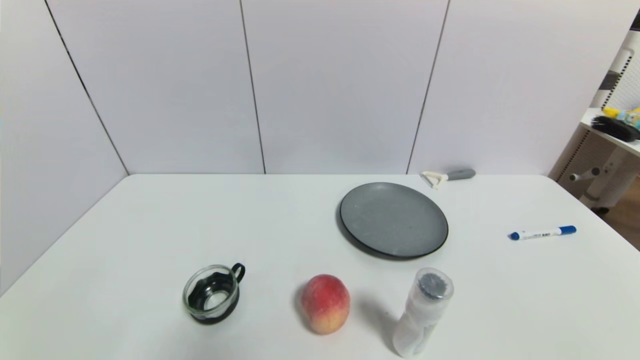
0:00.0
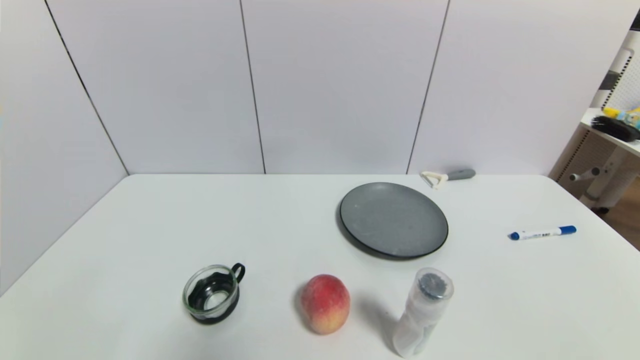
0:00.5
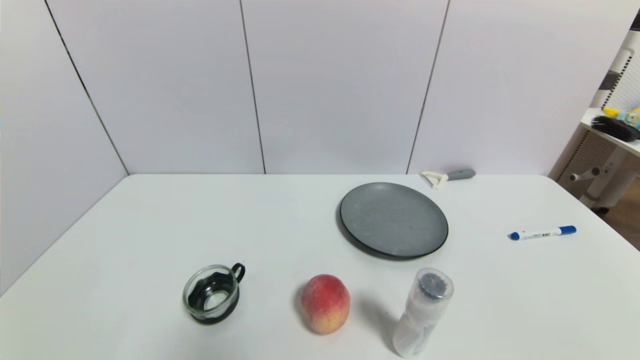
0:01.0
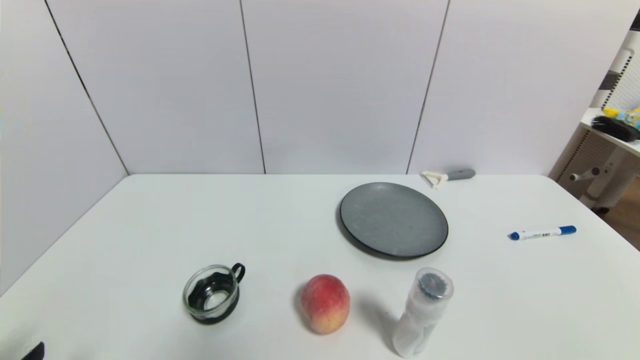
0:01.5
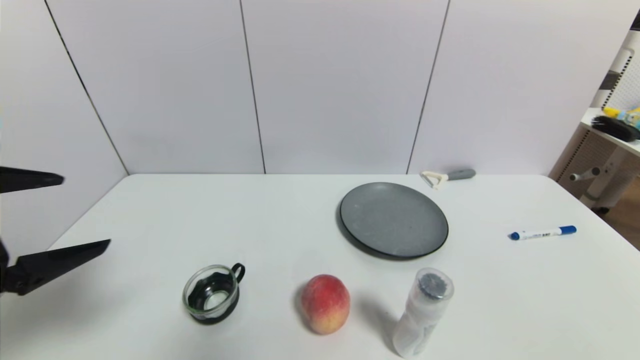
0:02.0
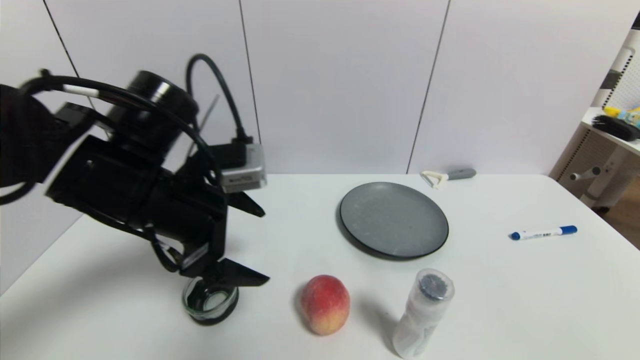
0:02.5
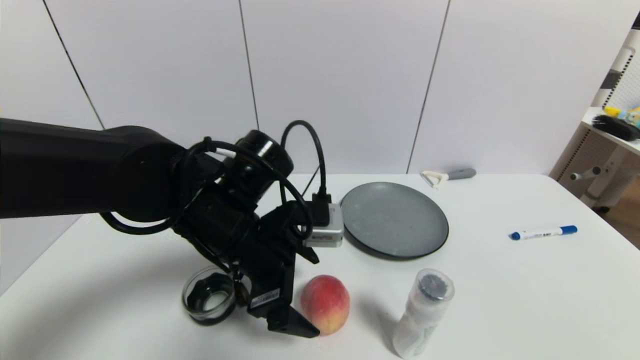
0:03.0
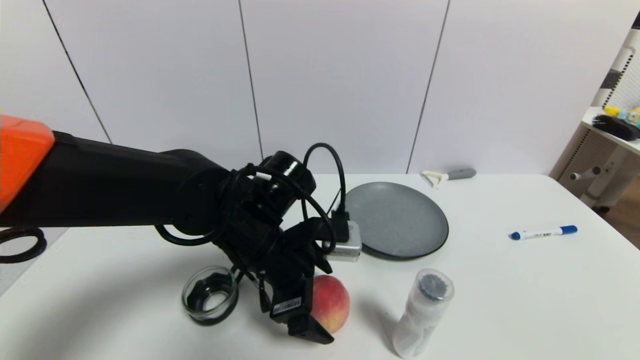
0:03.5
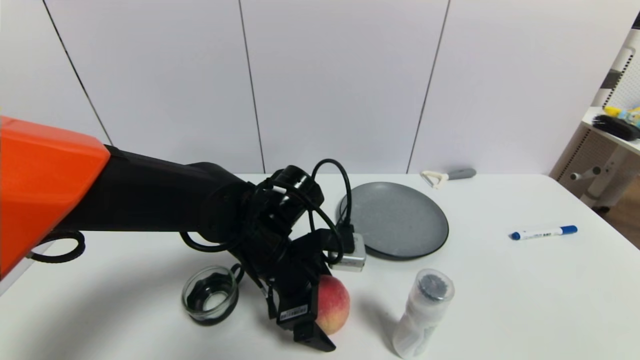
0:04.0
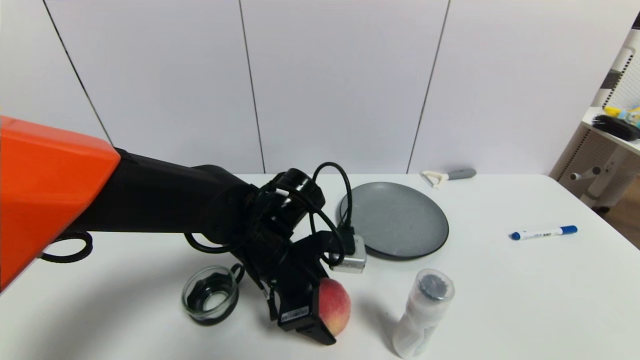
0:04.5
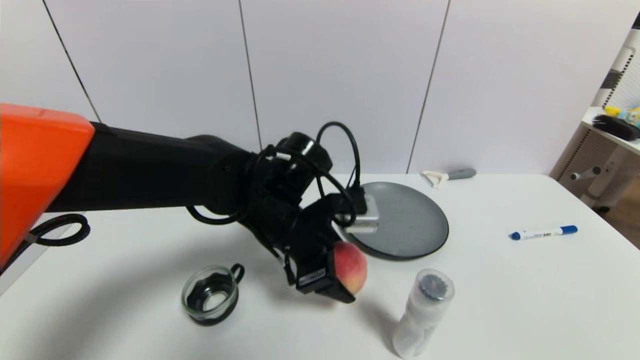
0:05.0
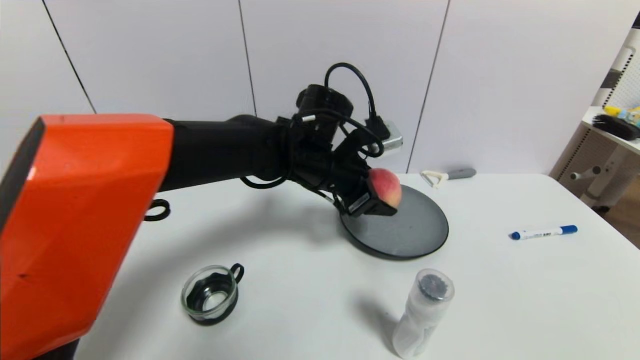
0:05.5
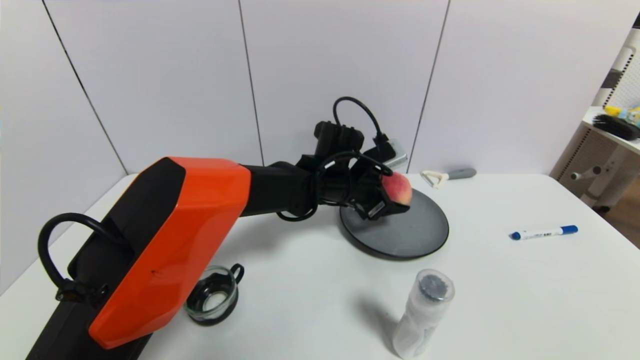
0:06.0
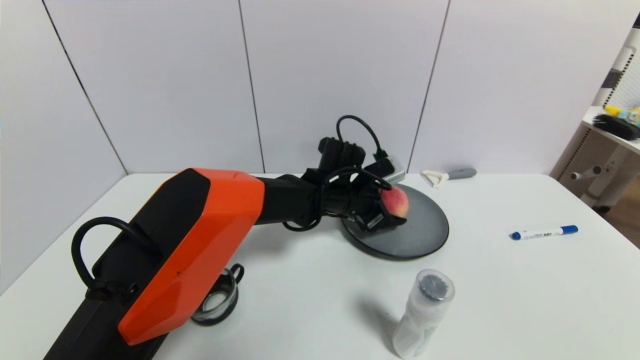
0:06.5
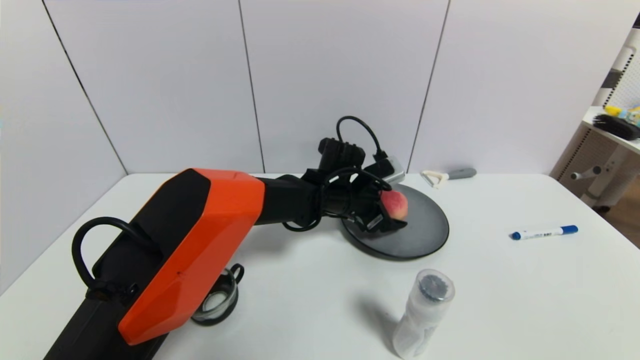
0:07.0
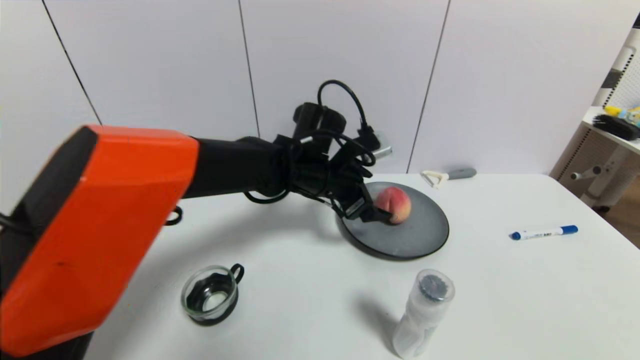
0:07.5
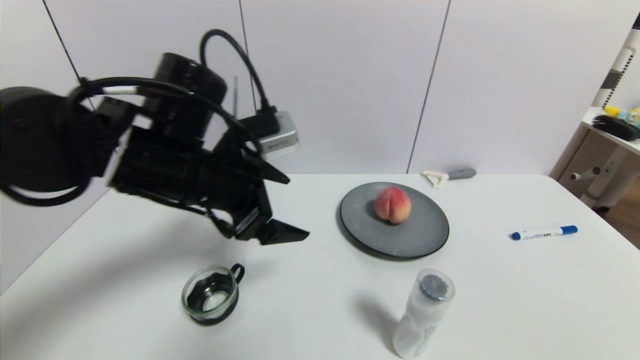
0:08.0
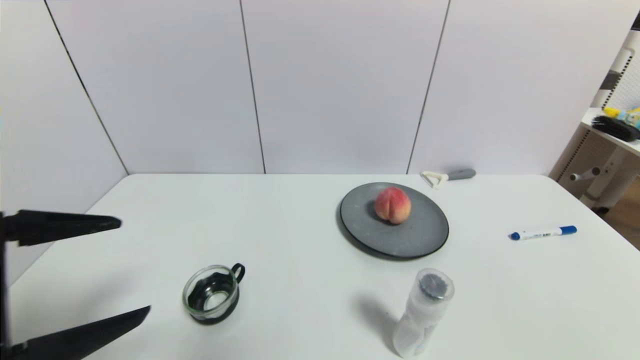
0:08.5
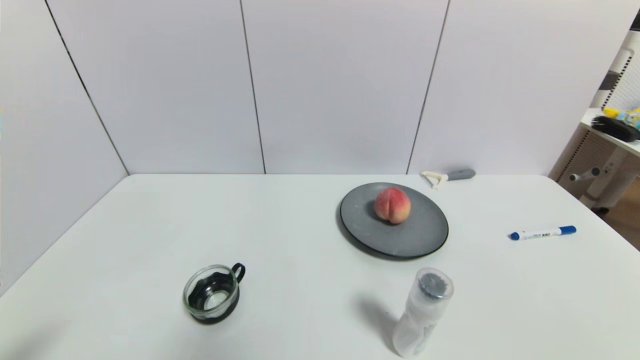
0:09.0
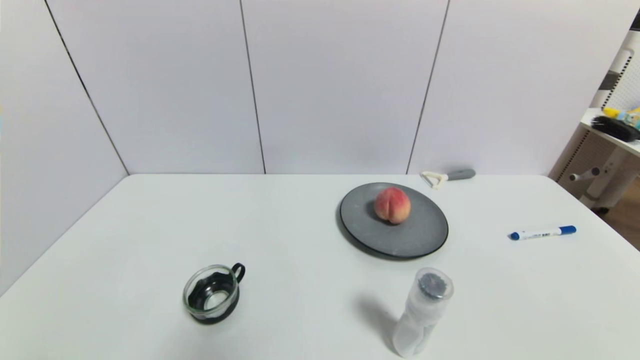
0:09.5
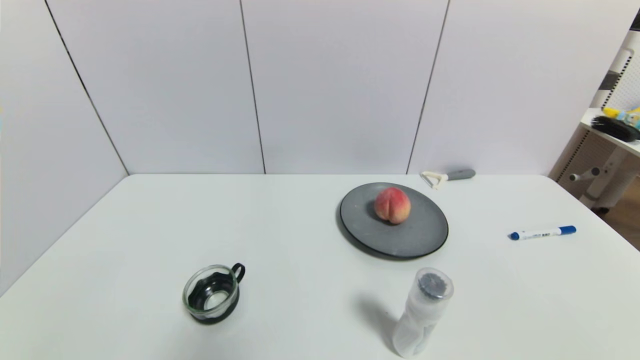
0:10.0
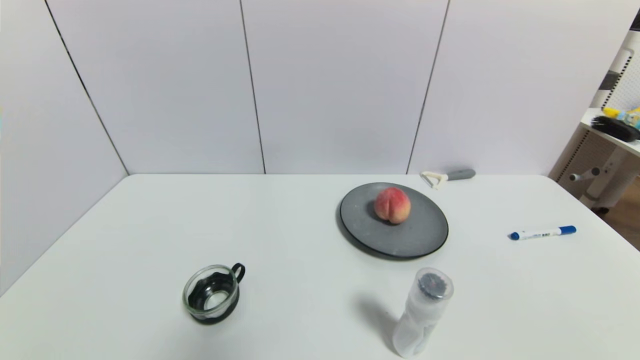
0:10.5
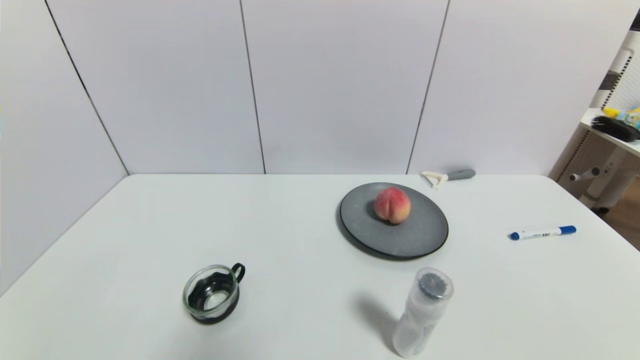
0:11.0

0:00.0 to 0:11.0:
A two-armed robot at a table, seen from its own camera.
Task of the whole recording: use a gripper to pick the target object and place on the gray plate.
Step, 0:00.0 to 0:04.5: Grasp the peach with the left gripper.
Step, 0:05.0 to 0:07.0: Place the peach on the gray plate with the left gripper.
0:00.0 to 0:02.0: The left gripper goes some 25 cm upward and forward.
0:02.0 to 0:03.5: The left gripper heads to the right, forward and downward, covering roughly 30 cm.
0:03.5 to 0:05.5: The left gripper heads forward, to the right and upward, covering about 15 cm, and closes up.
0:05.5 to 0:07.5: The left gripper moves about 10 cm downward and comes back, and opens its fingers.
0:07.5 to 0:09.0: The left gripper moves backward and to the left, roughly 50 cm.
